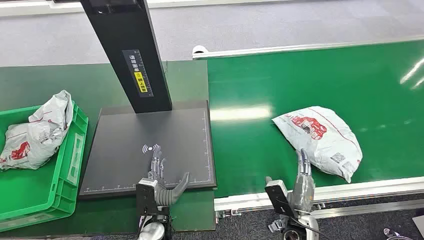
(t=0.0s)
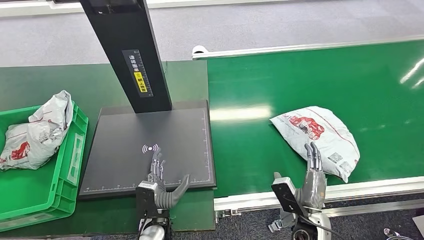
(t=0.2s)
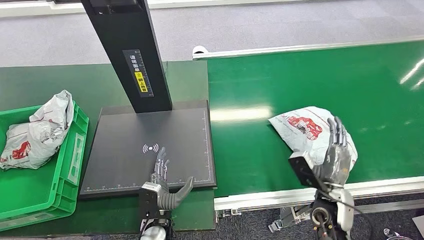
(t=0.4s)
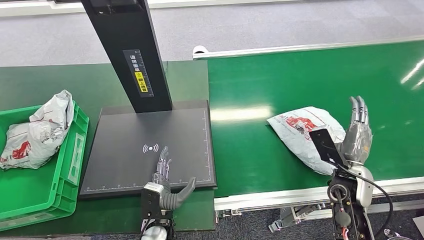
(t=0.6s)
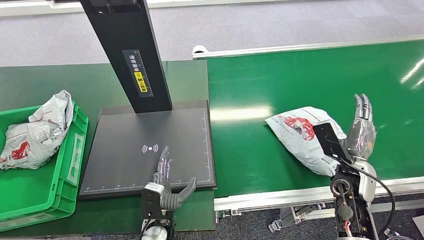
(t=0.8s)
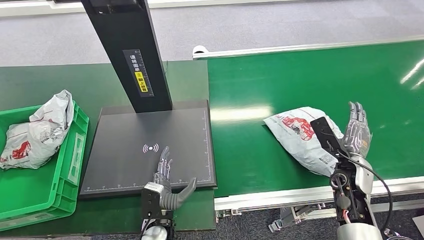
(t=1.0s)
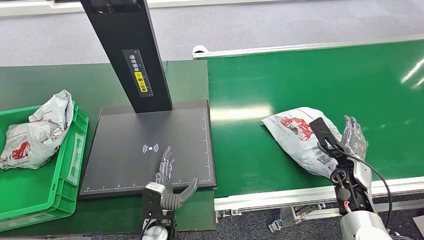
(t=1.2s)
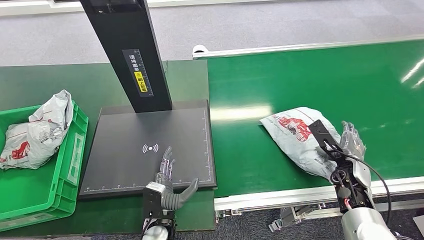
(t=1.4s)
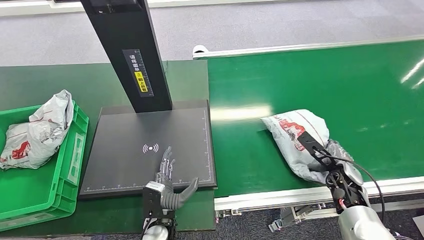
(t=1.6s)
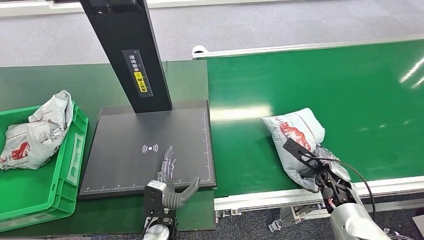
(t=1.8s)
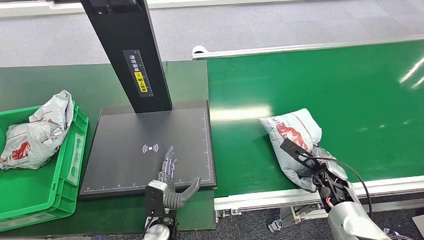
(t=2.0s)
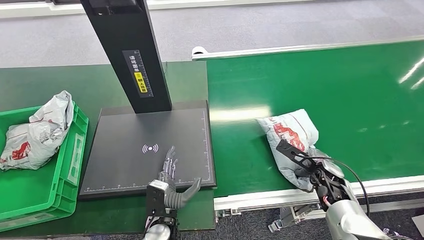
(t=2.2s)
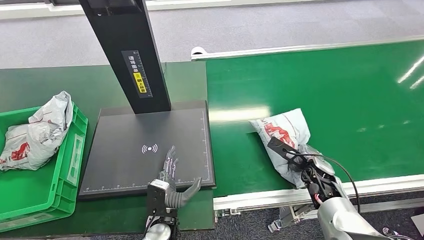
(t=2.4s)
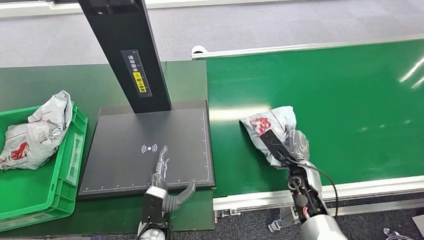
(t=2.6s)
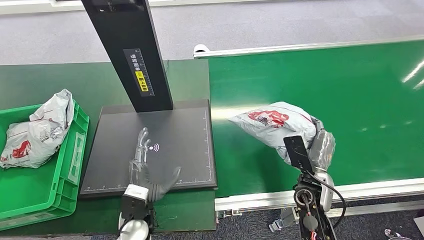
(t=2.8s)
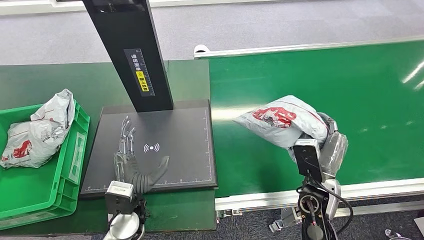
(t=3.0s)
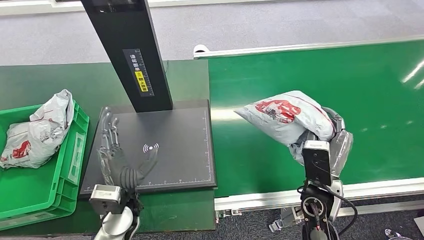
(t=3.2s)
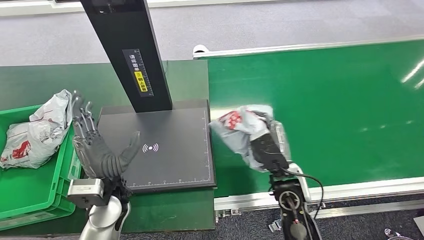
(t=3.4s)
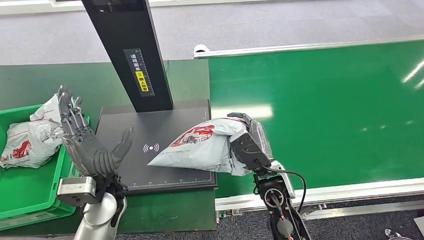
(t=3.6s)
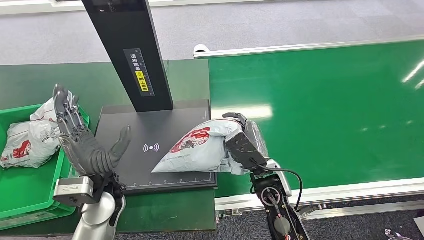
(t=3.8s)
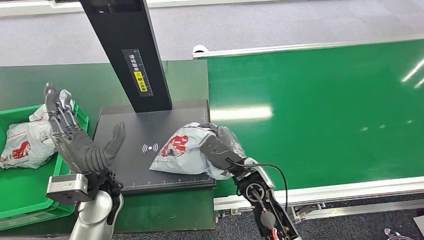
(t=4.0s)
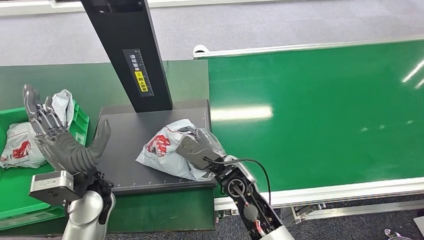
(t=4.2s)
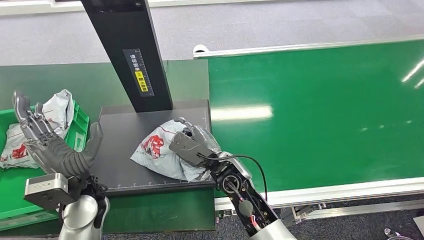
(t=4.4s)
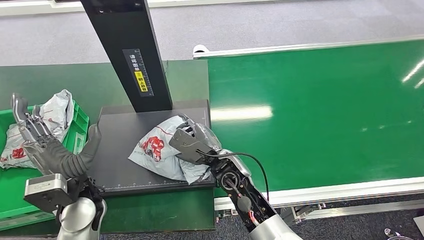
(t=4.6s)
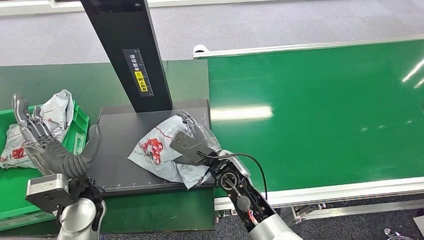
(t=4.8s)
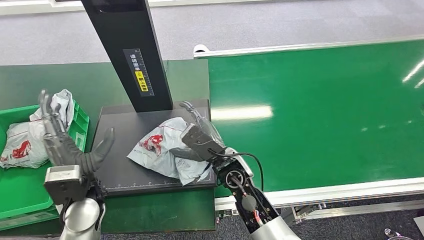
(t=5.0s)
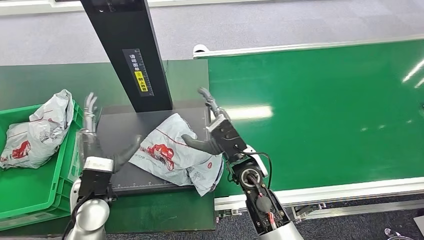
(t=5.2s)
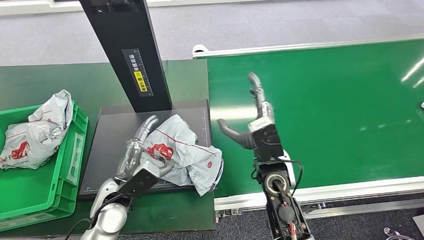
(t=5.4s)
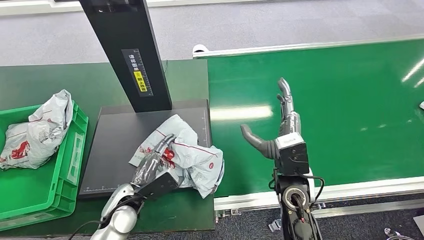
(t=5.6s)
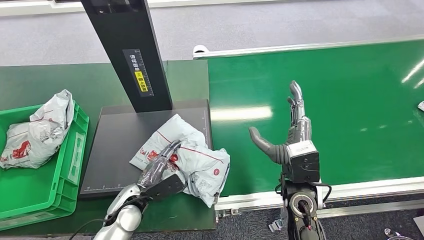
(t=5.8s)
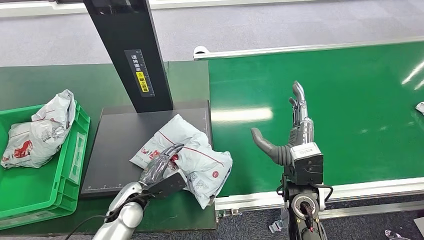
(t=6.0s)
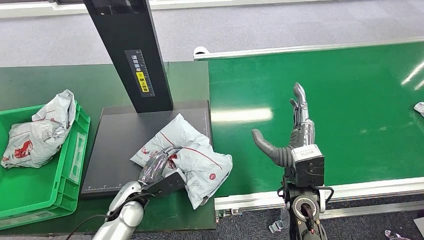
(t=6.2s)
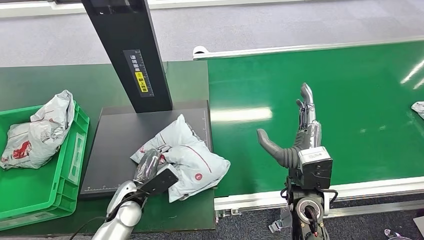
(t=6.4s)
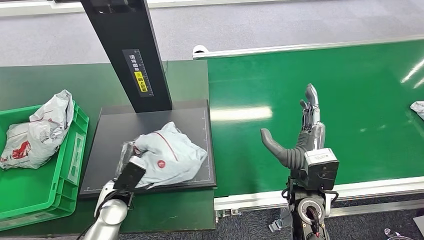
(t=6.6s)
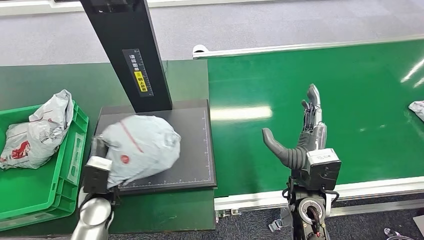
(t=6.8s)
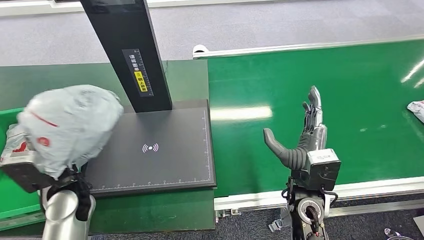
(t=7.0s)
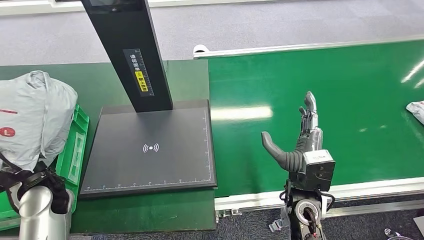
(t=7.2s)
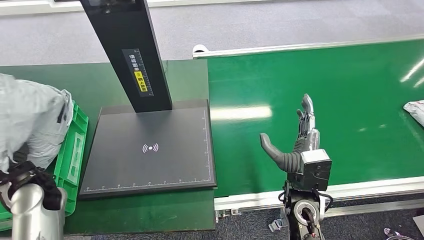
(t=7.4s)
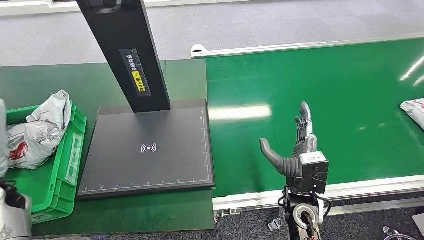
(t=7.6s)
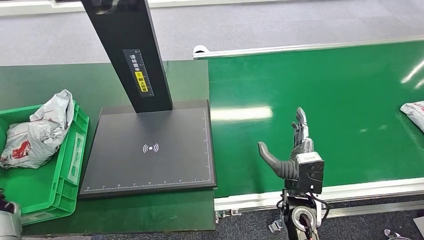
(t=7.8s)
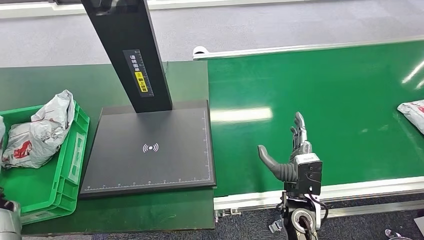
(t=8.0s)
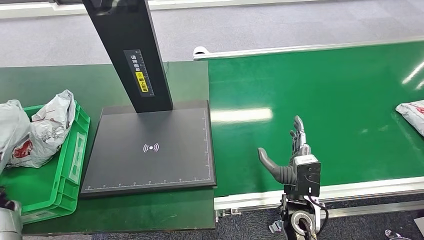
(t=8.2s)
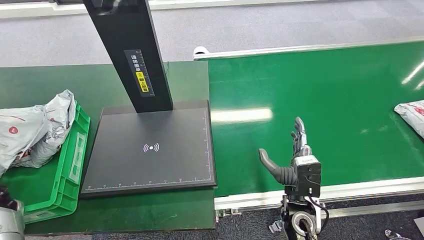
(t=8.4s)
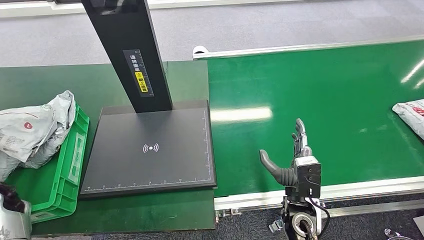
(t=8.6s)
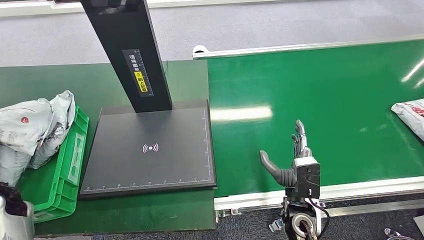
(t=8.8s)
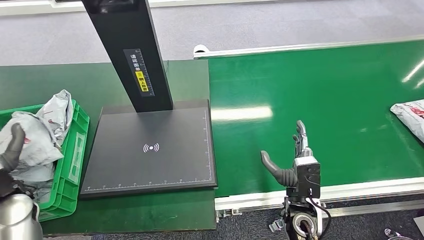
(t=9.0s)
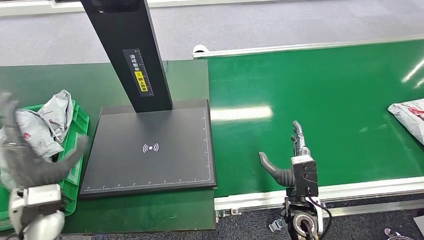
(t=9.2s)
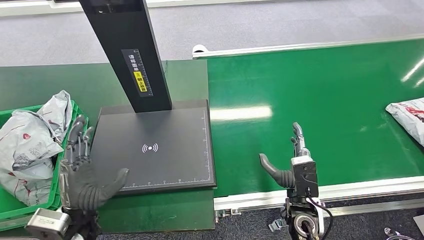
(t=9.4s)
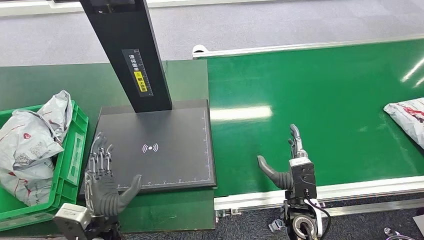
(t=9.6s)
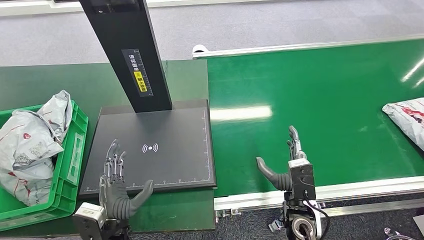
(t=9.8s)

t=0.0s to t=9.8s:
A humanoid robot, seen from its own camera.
Task of the whole recording: Weigh the package on the weighing device and place it in the left basket.
Step, t=0.0s to t=3.2s: Pick up the package from the conveyor belt.
Step, t=3.4s to t=5.8s: Place the package onto the inbound machine.
Step, t=6.2s to t=7.4s: Pick up the package from the inbound machine.
Step, t=7.6s to t=9.8s: Place the package into the parcel locker.
t=1.4s to t=2.8s: The right hand heads to the left, covering some 15 cm. The left hand moves some 5 cm.
